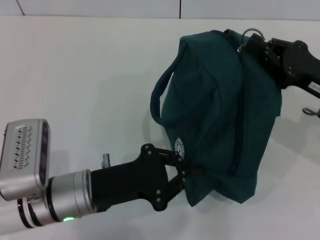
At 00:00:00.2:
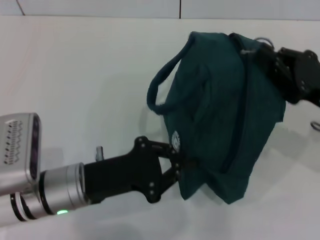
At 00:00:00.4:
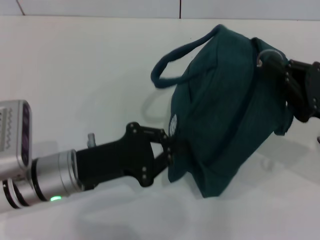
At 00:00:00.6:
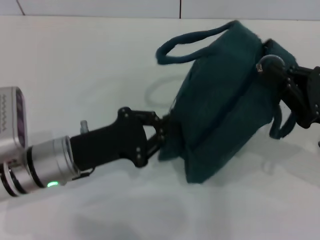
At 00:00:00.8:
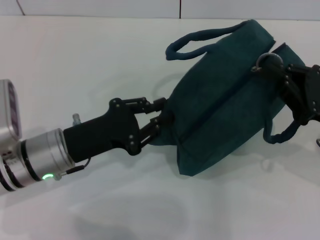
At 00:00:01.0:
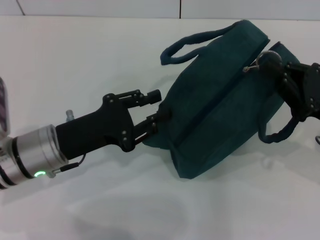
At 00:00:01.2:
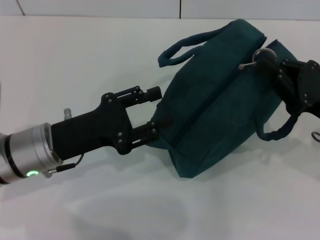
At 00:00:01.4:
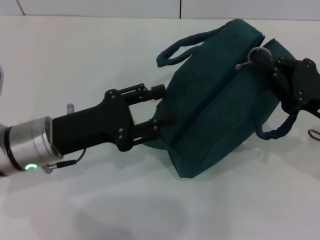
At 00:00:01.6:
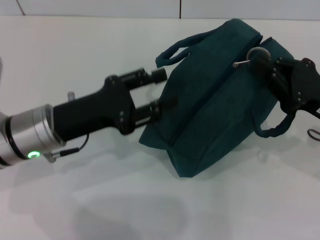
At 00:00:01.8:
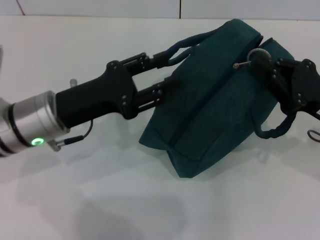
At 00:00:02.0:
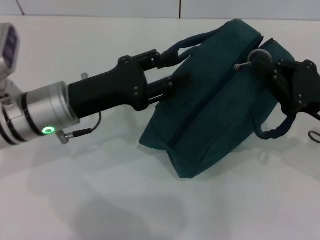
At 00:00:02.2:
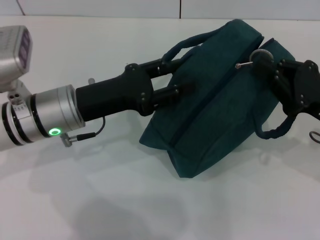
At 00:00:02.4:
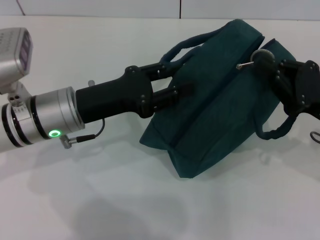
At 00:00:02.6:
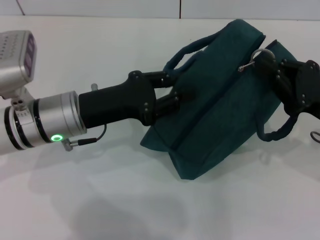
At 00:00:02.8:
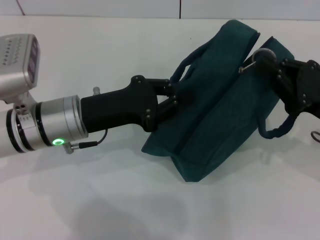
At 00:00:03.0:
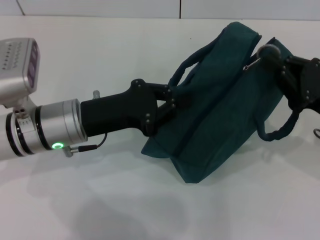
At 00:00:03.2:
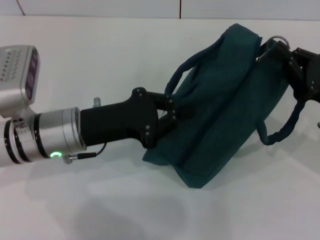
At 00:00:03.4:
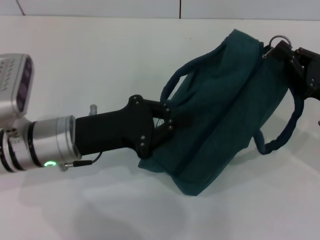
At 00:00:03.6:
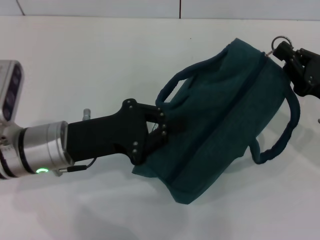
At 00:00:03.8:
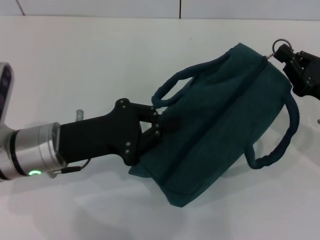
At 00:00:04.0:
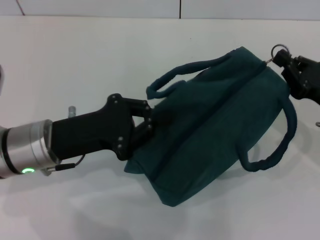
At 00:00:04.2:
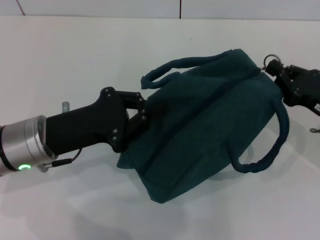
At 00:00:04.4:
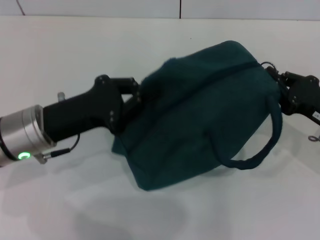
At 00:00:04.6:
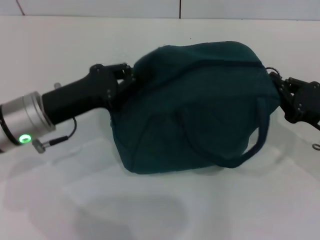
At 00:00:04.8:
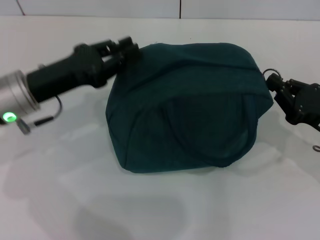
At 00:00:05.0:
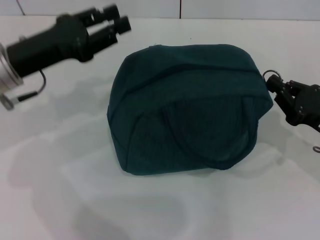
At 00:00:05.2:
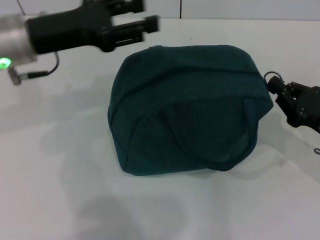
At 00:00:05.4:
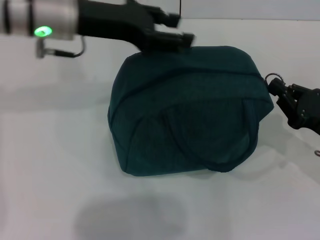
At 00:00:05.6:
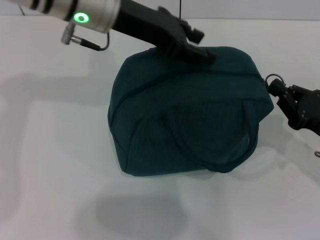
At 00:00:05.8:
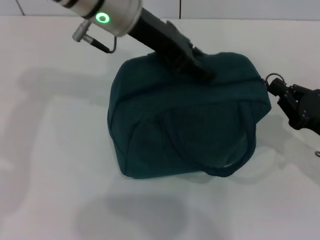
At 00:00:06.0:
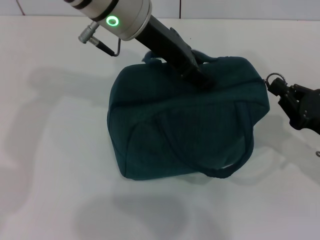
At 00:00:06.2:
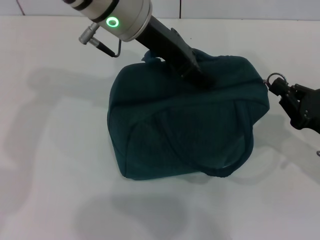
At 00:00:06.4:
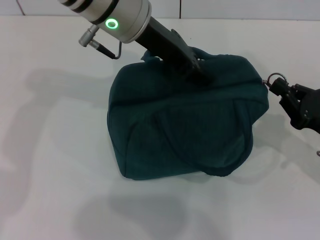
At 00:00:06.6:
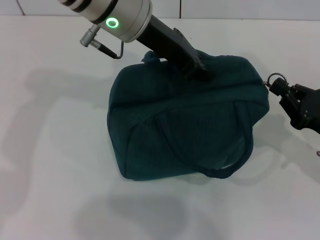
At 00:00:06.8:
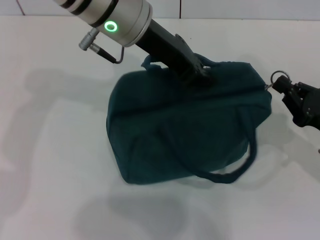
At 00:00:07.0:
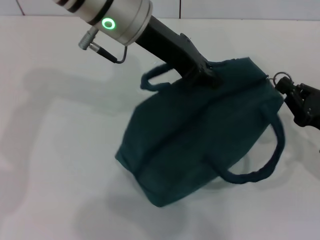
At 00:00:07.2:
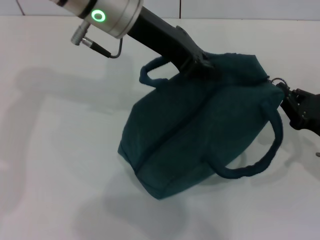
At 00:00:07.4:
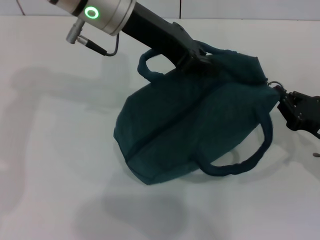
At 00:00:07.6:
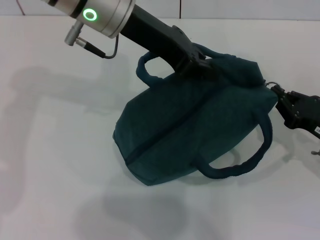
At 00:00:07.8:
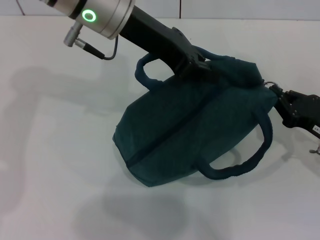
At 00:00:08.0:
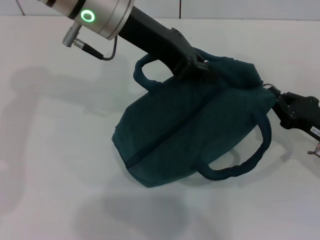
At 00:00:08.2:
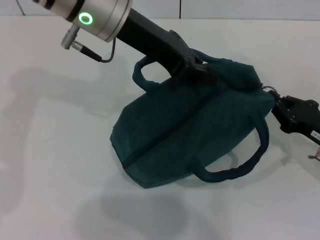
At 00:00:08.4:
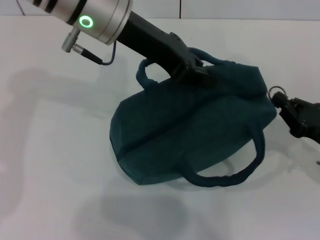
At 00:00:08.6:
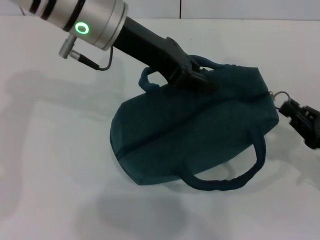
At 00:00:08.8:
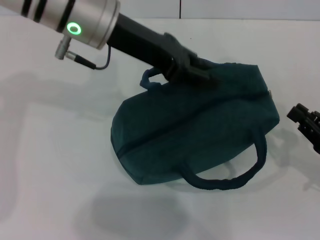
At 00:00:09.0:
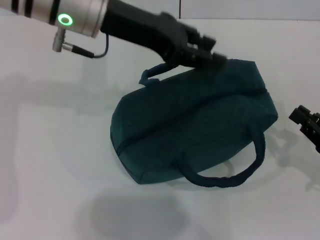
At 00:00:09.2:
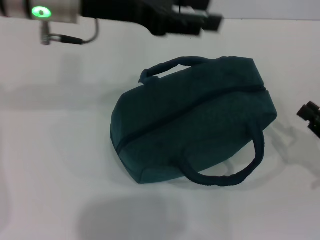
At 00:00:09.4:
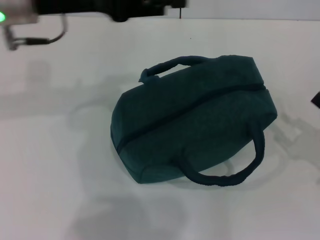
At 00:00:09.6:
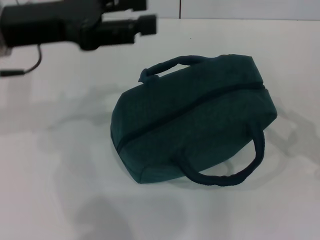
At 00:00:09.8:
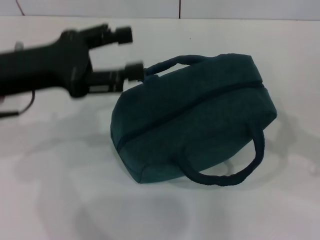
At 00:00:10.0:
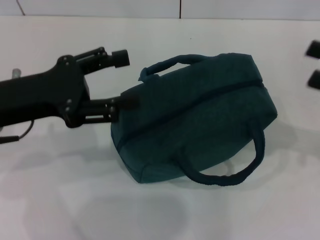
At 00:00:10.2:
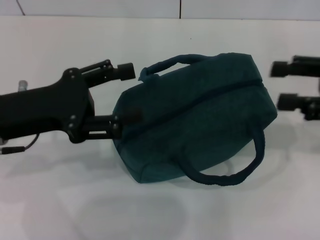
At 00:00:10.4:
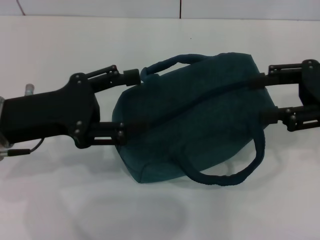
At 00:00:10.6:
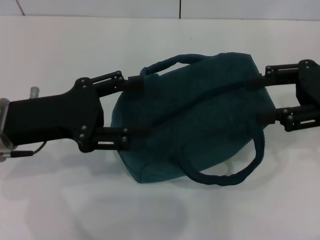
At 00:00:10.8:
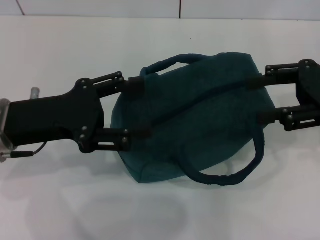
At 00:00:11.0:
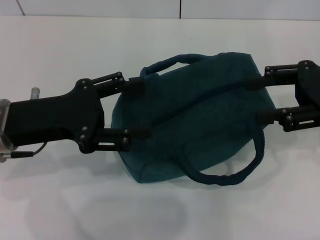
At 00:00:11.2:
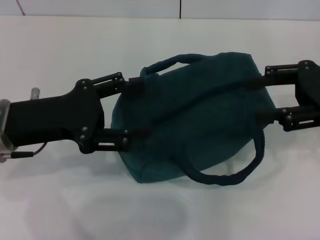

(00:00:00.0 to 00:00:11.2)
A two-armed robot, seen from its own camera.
Step, 00:00:00.0 - 00:00:08.6: Zip up the lunch bag with your right hand.
00:00:00.0 - 00:00:01.6: The left gripper shifts roughly 10 cm forward and upward, and opens.
00:00:01.6 - 00:00:03.2: The left gripper closes up.
00:00:03.2 - 00:00:04.8: The left gripper heads to the left, covering about 5 cm.
00:00:04.8 - 00:00:06.4: The left gripper shifts some 20 cm to the right, upward and forward.
00:00:06.4 - 00:00:08.0: The left gripper closes up.
00:00:08.0 - 00:00:09.6: The right gripper moves to the right and upward, some 10 cm, and opens; the left gripper moves to the left, some 15 cm, and opens.
00:00:09.6 - 00:00:11.2: The right gripper goes about 15 cm upward, forward and to the left. Meanwhile the left gripper heads downward and backward, covering some 10 cm.
